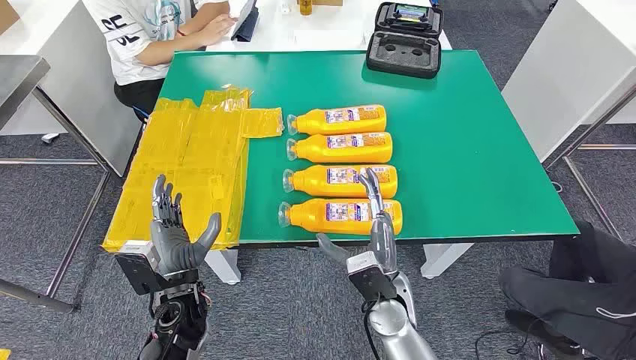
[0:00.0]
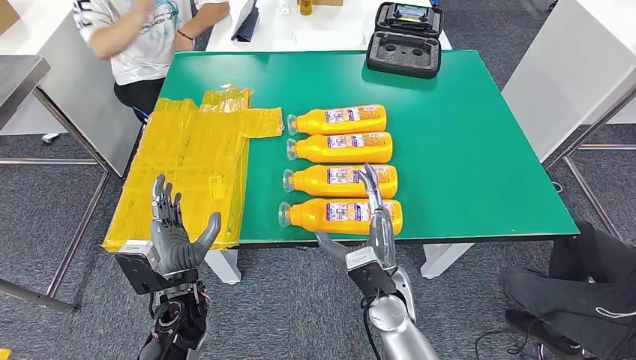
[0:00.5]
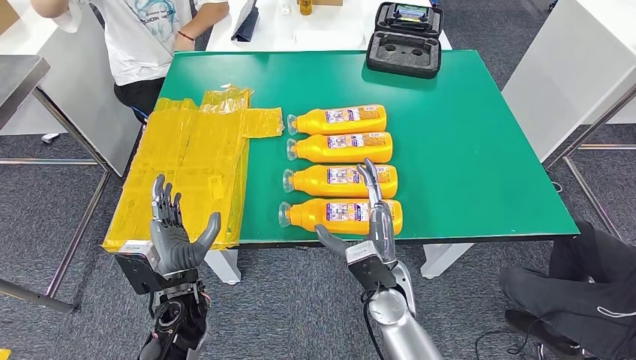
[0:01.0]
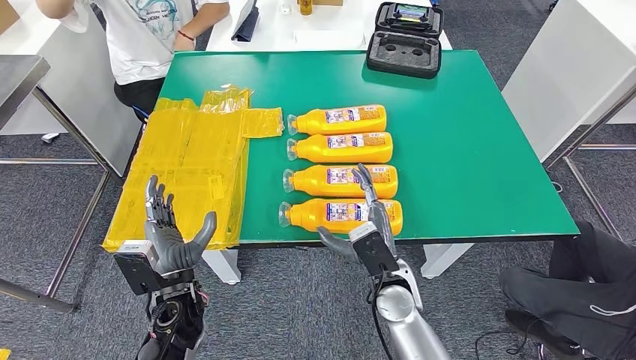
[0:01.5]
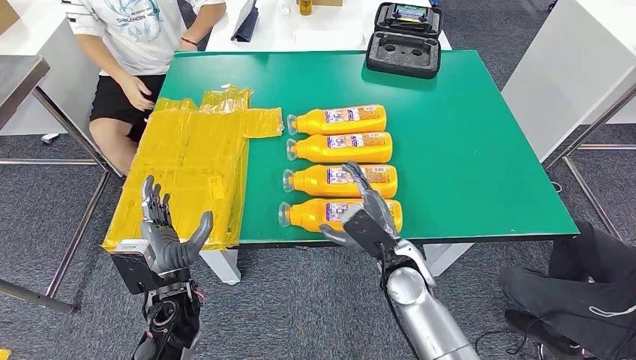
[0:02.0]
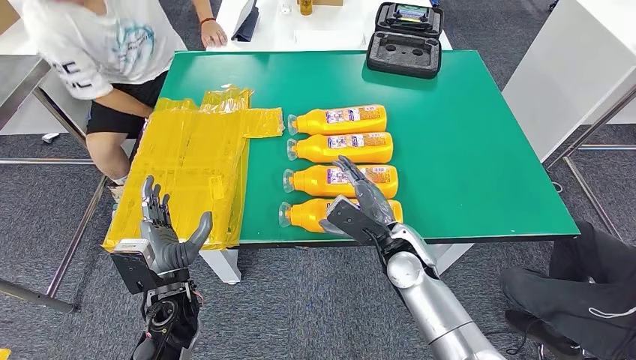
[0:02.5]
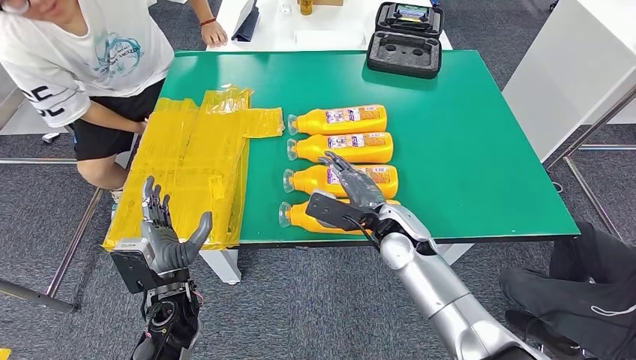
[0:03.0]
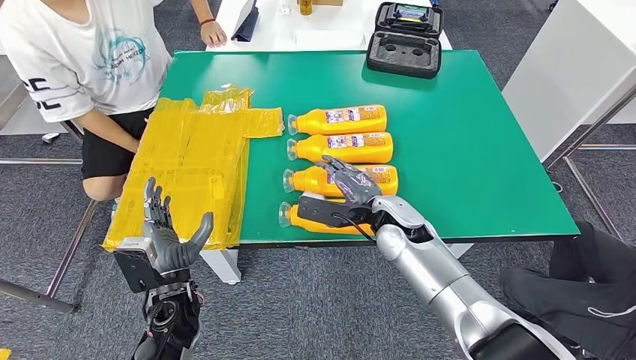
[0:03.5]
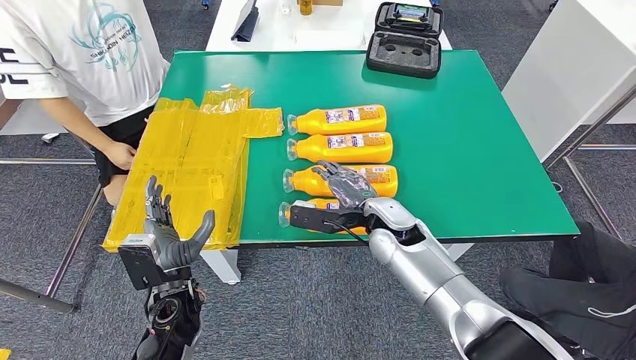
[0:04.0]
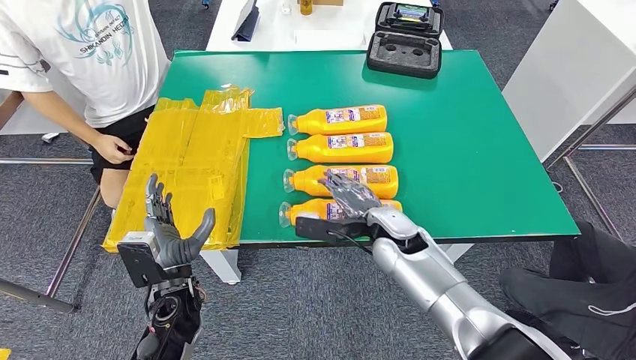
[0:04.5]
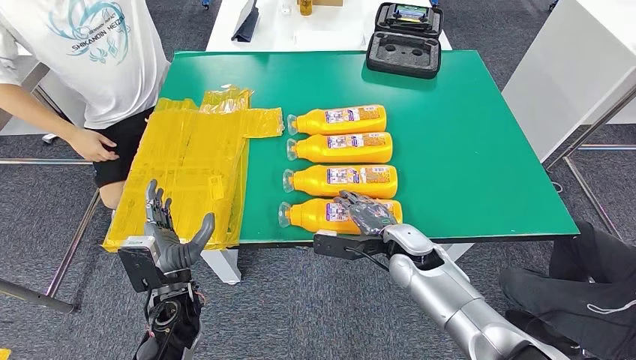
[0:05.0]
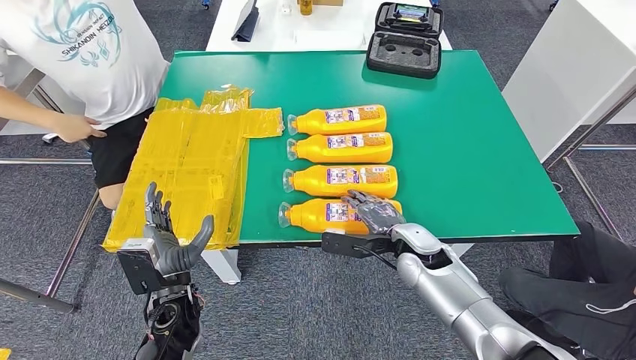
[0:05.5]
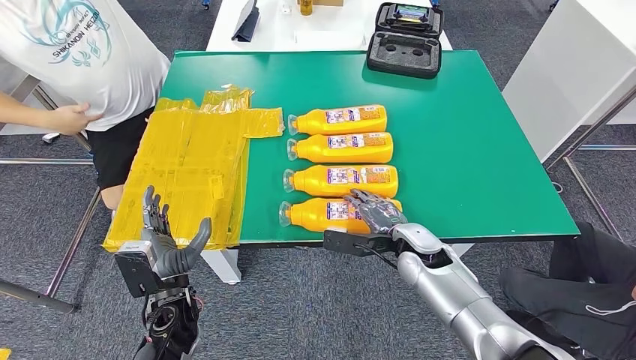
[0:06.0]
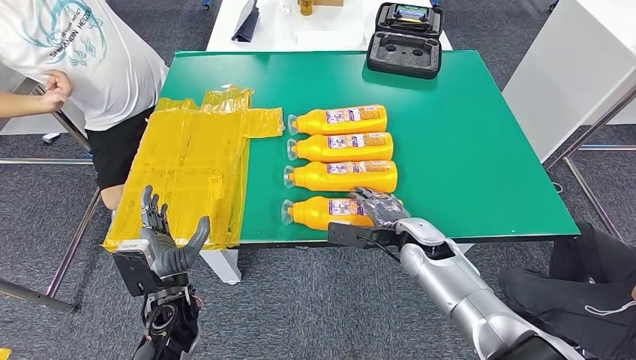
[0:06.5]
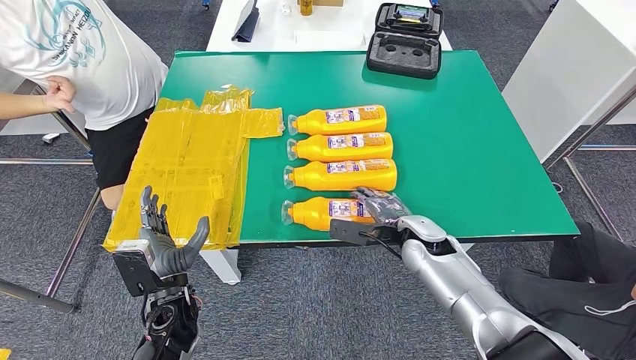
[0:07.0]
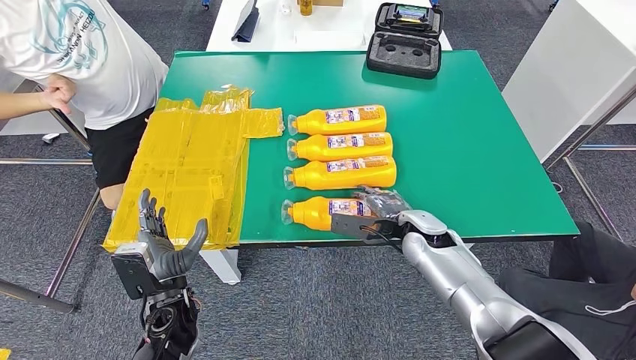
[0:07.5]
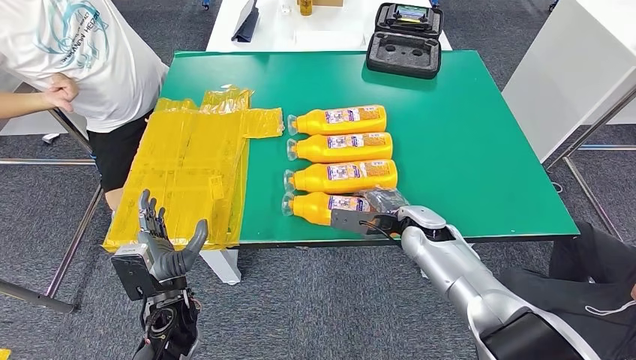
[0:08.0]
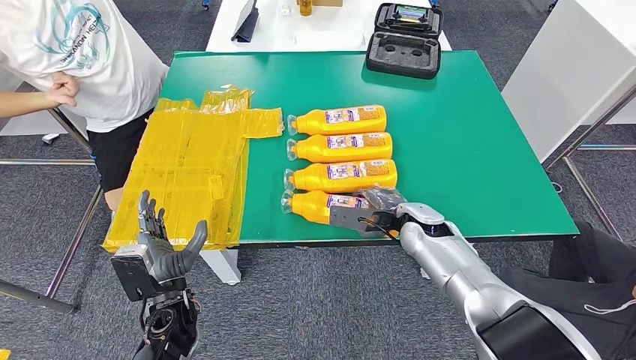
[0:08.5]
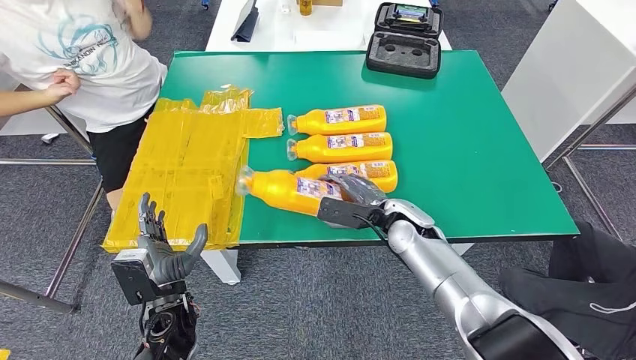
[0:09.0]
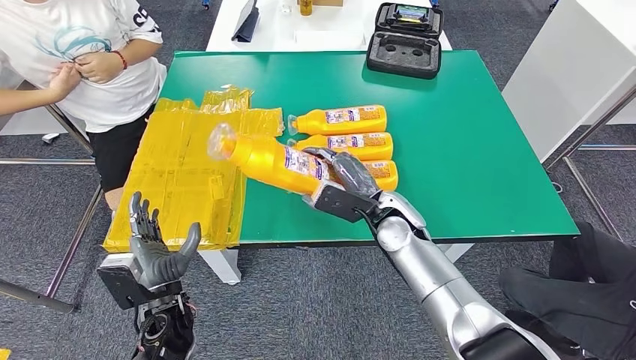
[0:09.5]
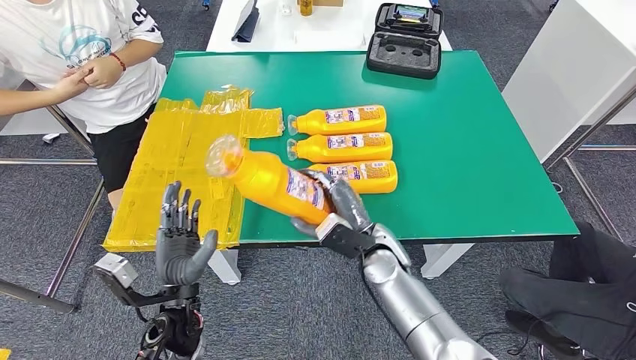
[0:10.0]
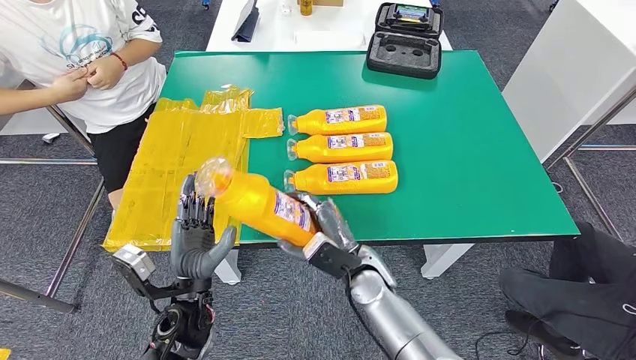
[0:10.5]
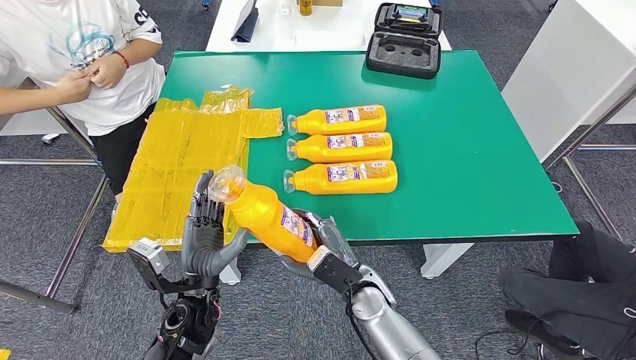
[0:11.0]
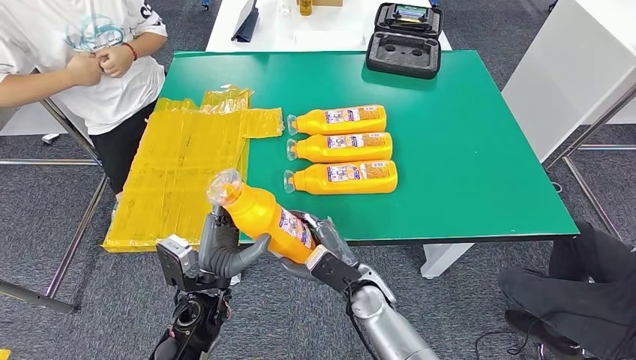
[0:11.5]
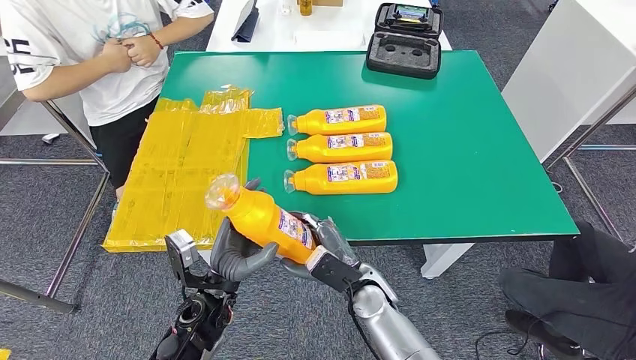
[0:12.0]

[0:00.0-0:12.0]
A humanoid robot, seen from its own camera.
Step, 0:00.0 to 0:10.0: Take the fast-moving consumer goods bottle from the table.
0:02.0 to 0:04.0: The right hand is displaced forward by roughly 5 cm.
0:04.0 to 0:06.0: The right hand travels to the right and downward by approximately 10 cm.
0:06.0 to 0:08.0: The hands stay close to where they were, moving slightly.
0:08.0 to 0:10.0: The right hand heads to the left and backward, covering some 10 cm.
0:10.0 to 0:12.0: The left hand shifts by about 5 cm. Meanwhile the right hand shifts roughly 5 cm downward and backward.

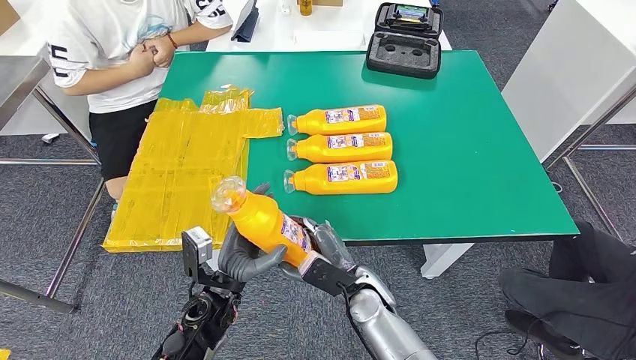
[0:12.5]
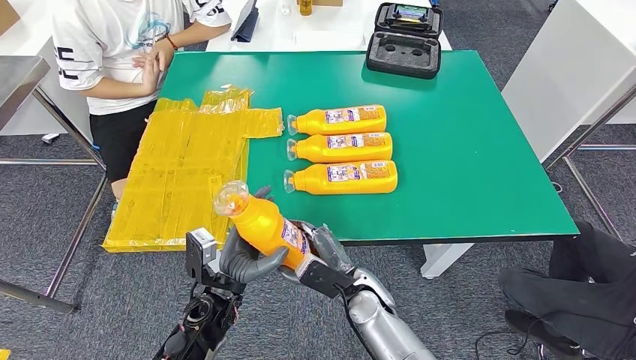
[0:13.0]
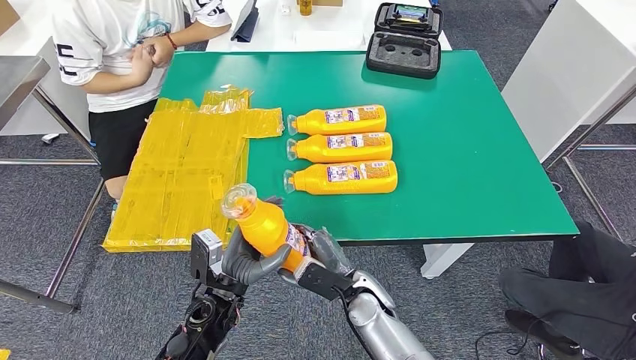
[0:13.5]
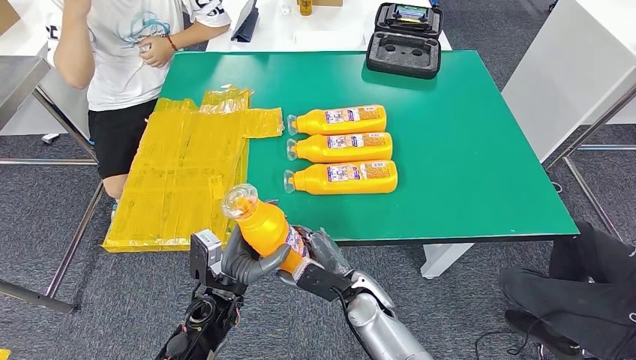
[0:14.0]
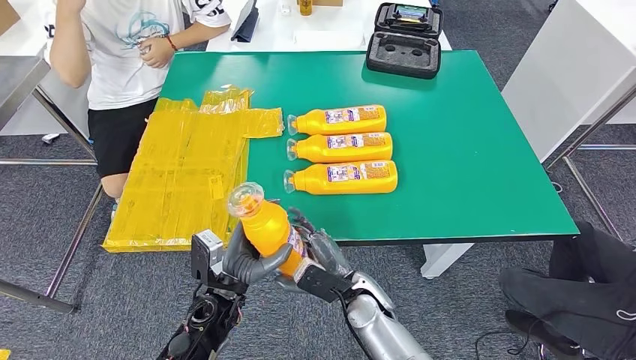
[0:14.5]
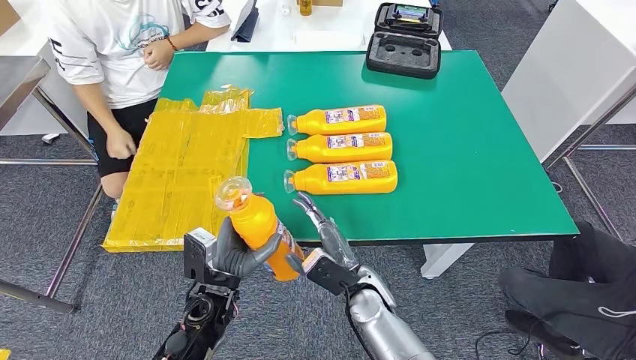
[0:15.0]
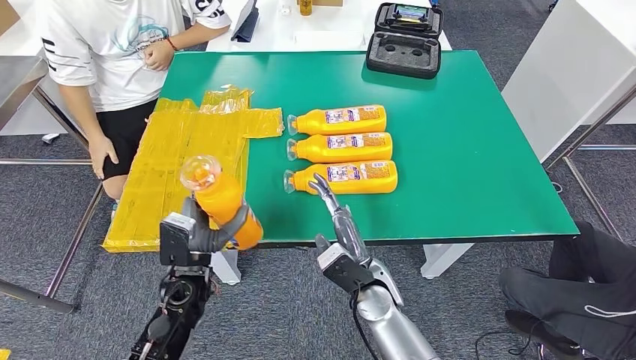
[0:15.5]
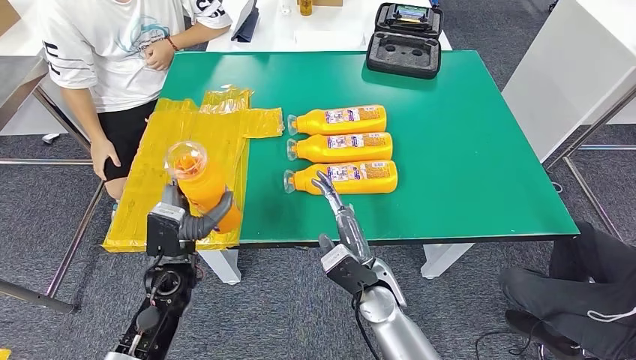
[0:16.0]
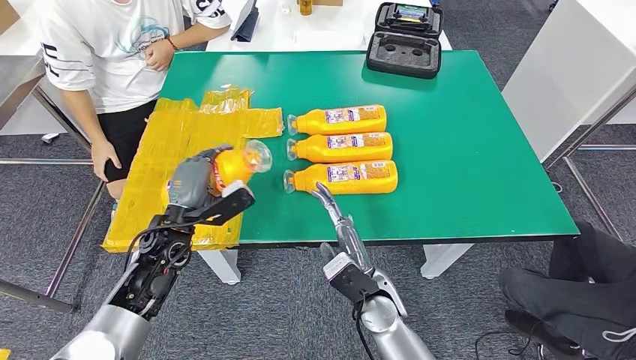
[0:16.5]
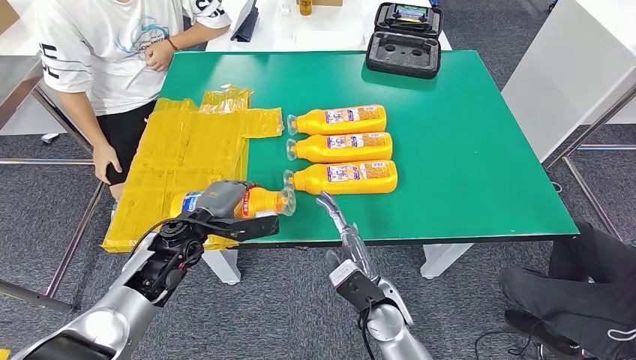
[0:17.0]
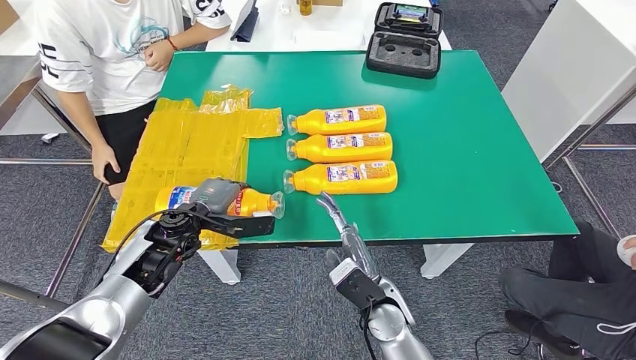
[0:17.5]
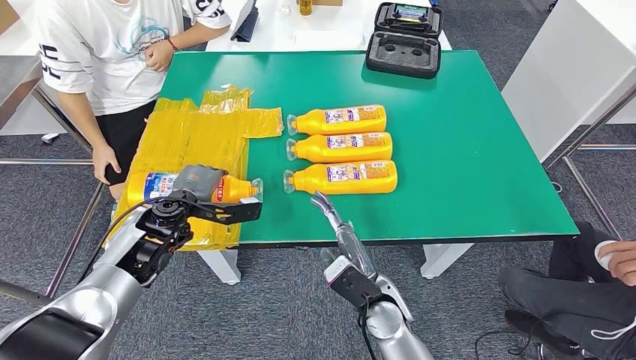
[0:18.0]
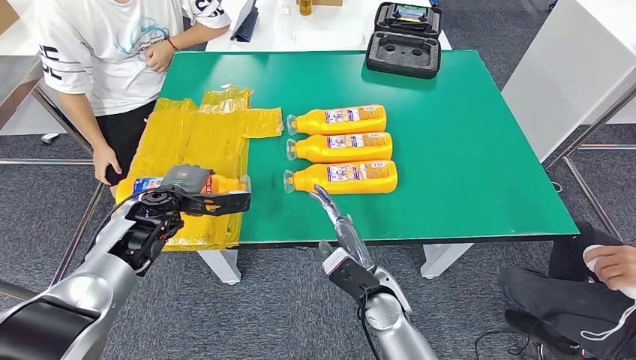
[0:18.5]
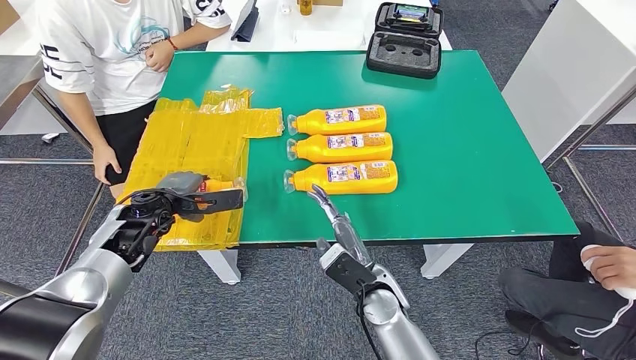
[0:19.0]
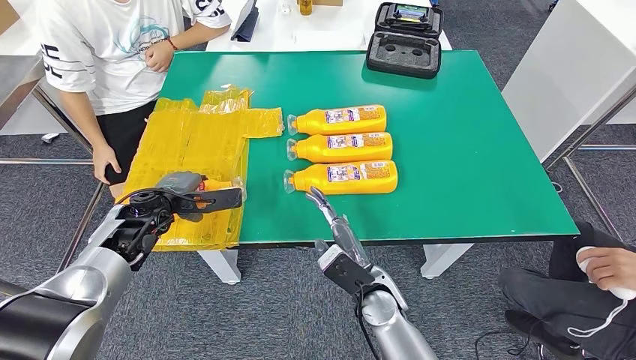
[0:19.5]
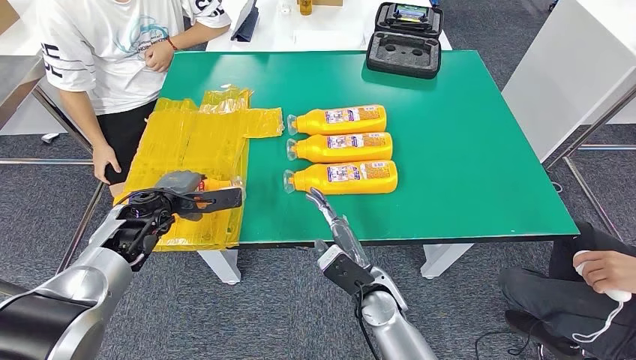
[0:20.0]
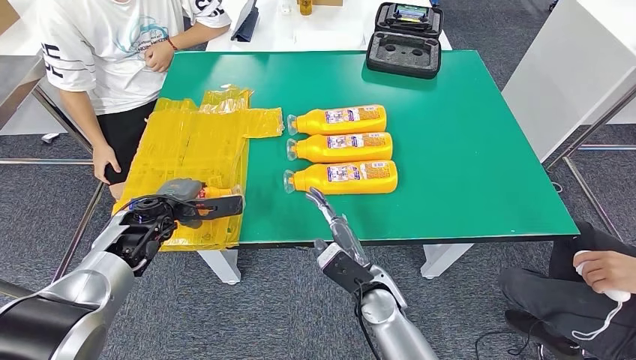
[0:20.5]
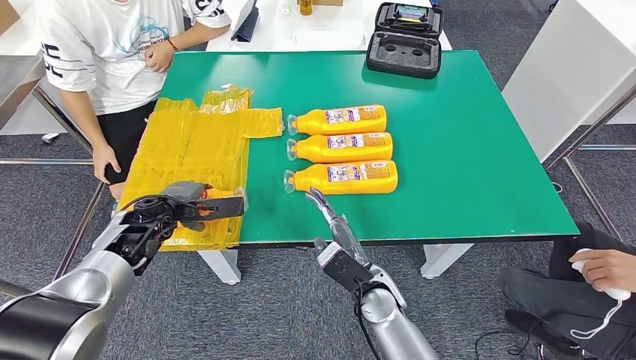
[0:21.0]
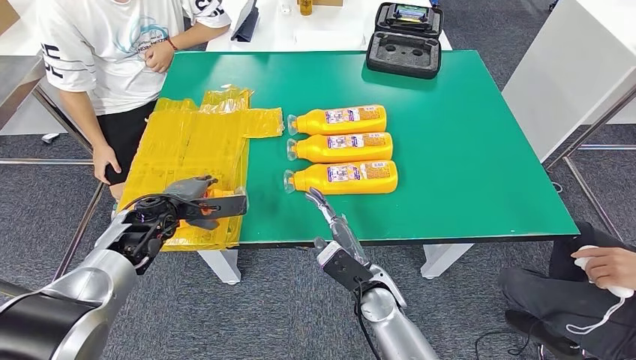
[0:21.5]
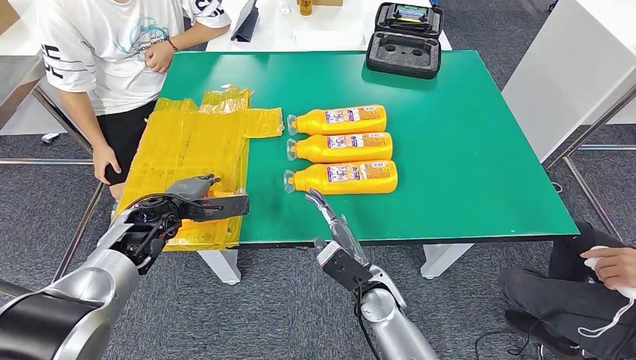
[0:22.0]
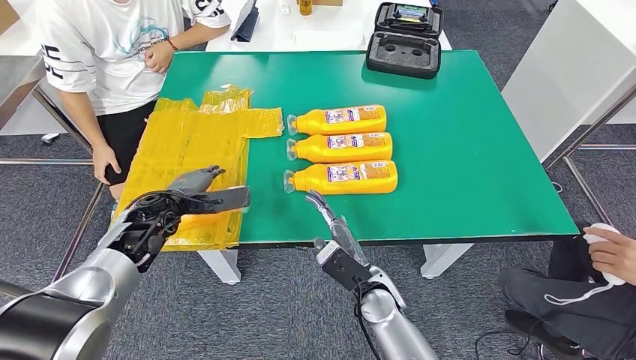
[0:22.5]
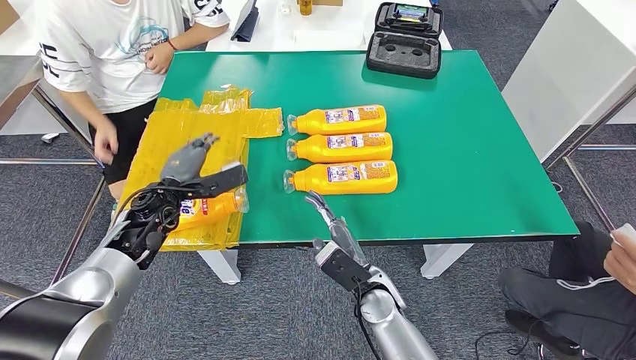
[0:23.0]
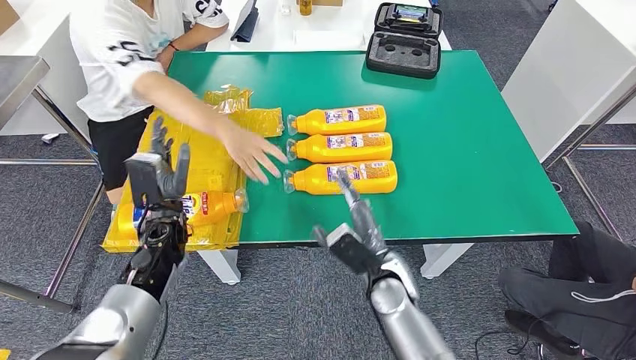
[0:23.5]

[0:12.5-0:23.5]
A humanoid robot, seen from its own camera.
Step, 0:12.5 to 0:22.5: Flip the fast-moving consumer goods bottle to the front side.
0:12.5 to 0:14.5: The two hands keep their place.
0:14.5 to 0:16.0: The left hand travels to the left by roughly 5 cm.
0:16.0 to 0:18.0: The left hand travels forward by approximately 10 cm.
0:18.0 to 0:20.0: The hands move only a little.
0:20.0 to 0:21.5: The hands move only a little.
